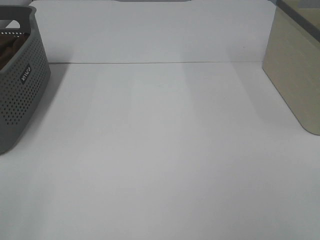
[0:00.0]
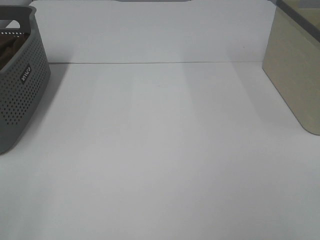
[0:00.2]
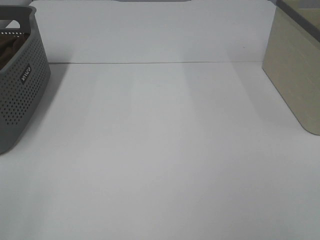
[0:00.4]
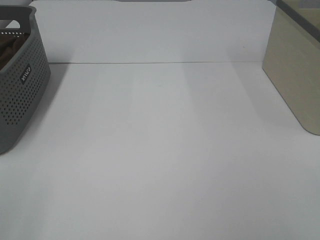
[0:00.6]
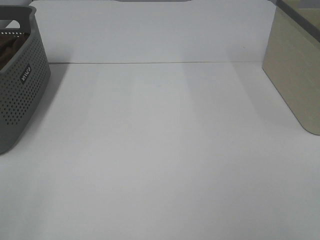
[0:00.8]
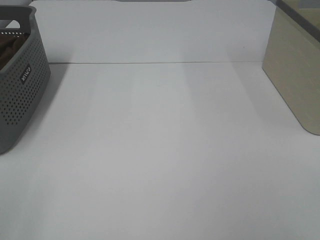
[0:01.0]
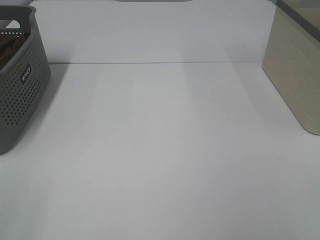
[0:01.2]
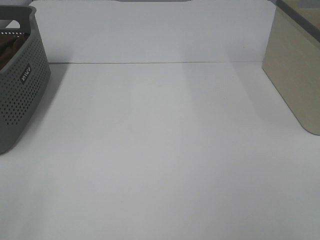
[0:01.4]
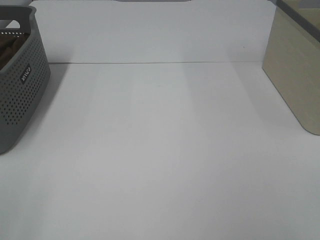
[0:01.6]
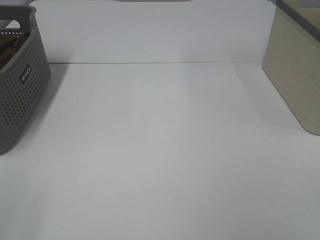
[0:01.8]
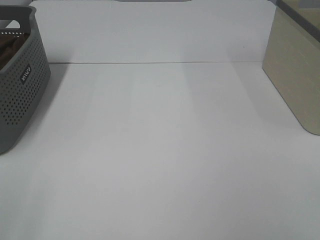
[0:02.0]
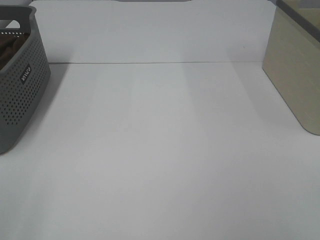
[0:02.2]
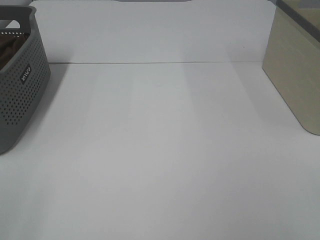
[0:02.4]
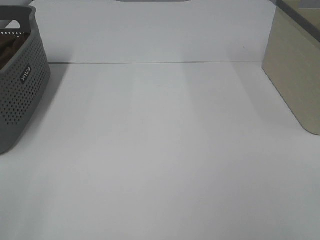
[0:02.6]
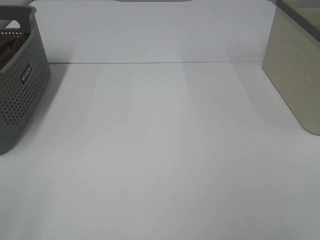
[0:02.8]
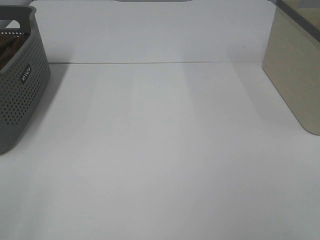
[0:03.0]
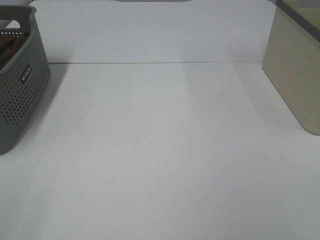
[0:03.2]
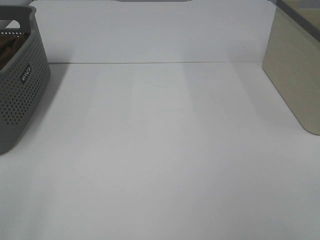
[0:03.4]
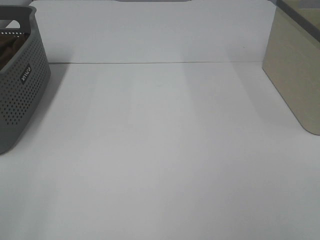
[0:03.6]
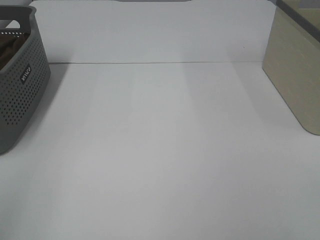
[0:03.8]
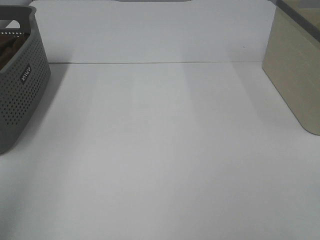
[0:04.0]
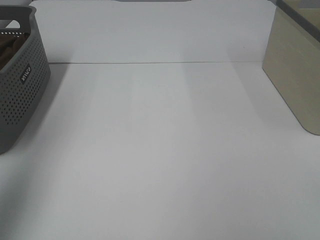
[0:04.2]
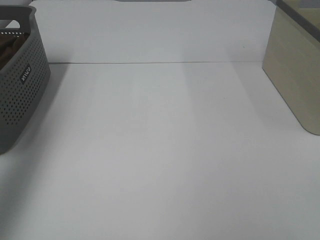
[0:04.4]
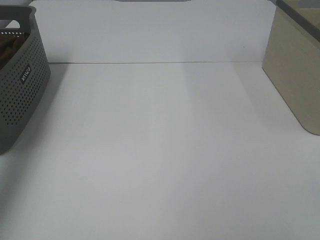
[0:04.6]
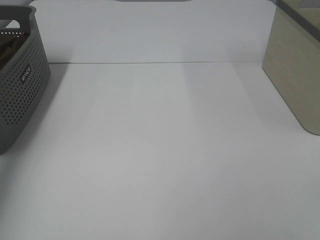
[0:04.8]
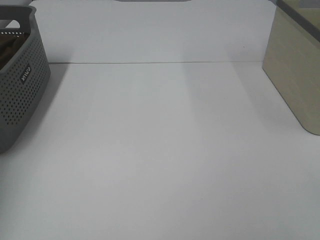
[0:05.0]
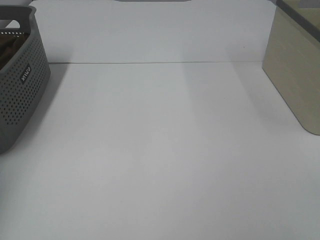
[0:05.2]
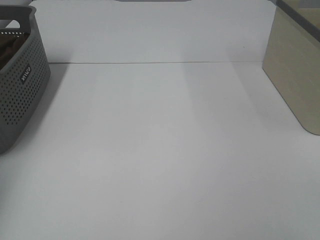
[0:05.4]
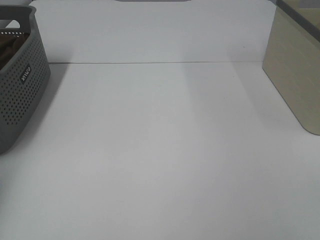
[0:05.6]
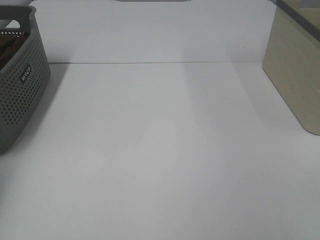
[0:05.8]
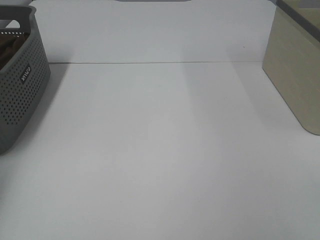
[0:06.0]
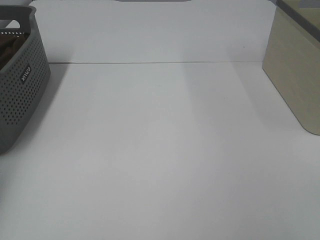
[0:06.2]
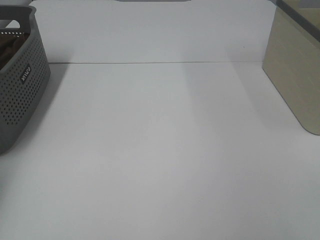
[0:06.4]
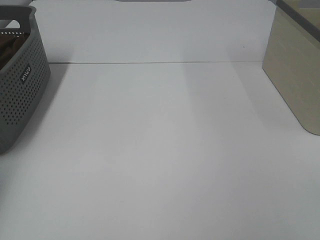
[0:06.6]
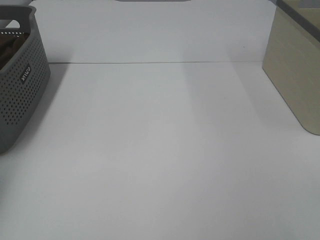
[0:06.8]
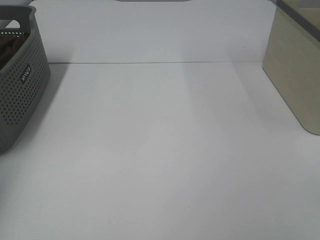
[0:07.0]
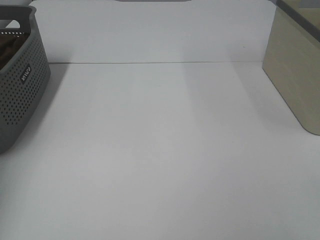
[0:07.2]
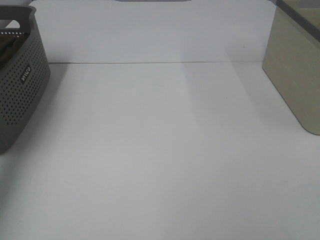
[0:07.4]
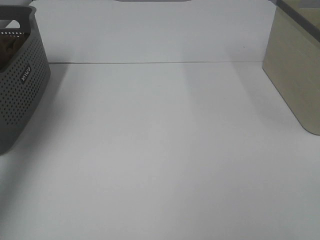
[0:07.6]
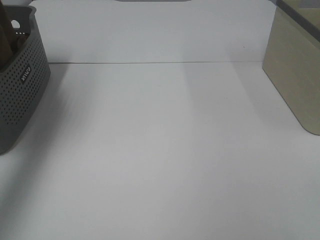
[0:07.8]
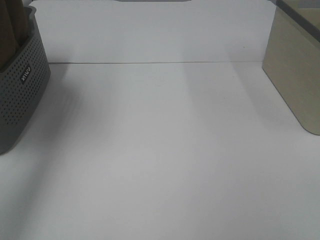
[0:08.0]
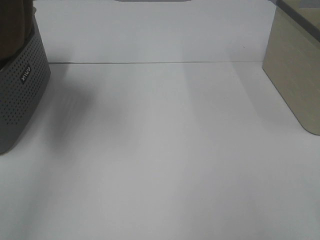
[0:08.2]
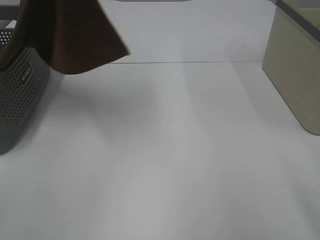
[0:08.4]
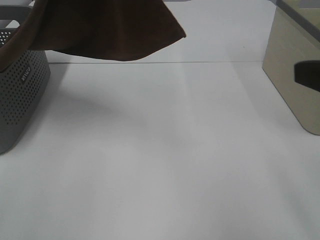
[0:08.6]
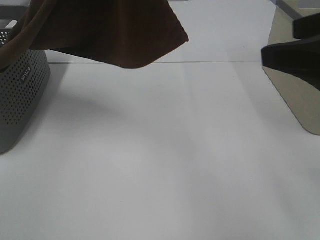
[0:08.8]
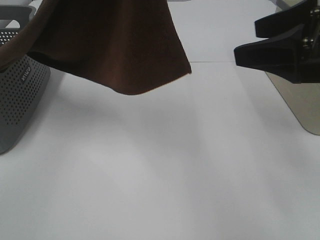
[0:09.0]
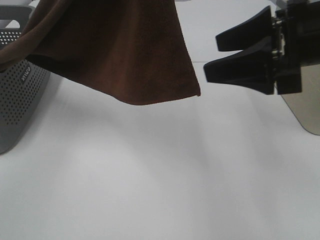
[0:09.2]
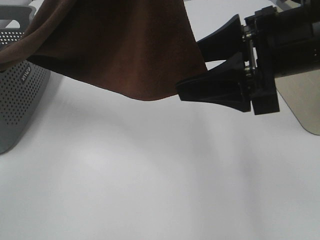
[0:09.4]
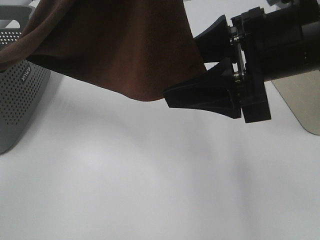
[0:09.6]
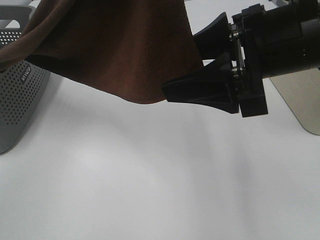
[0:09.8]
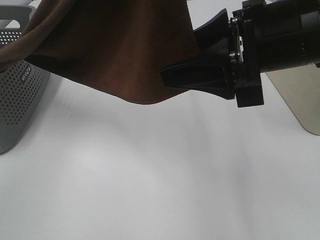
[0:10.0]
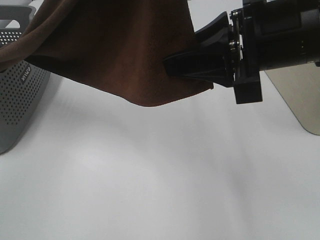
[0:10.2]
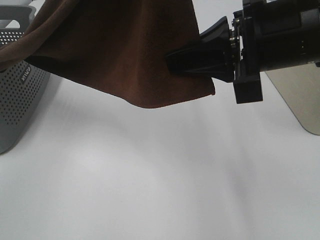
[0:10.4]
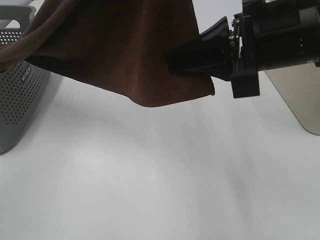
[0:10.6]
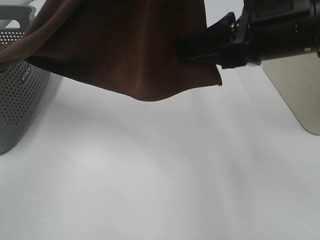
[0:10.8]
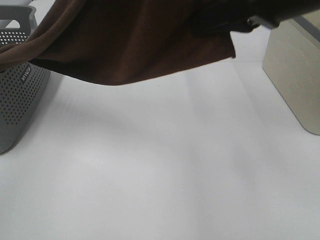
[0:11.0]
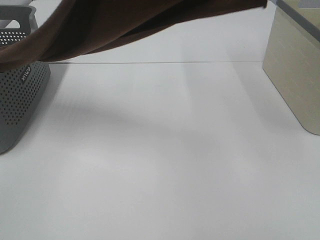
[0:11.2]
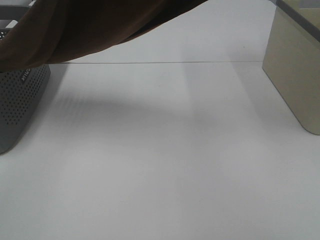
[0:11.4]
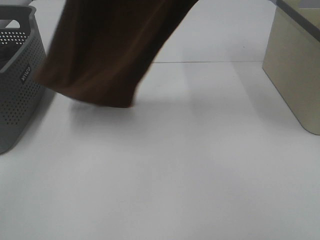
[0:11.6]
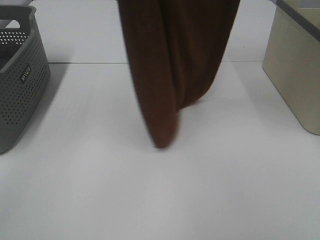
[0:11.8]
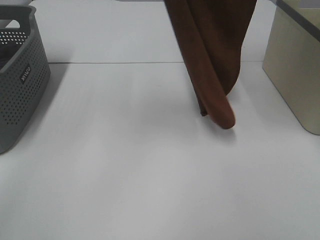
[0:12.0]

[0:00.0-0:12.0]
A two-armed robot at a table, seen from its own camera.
Task of the whole recording: Remove the towel and place it.
Step, 7.2 to 11.6 s: Right hand: grab a corner of the brown towel and straighten it.
0.0 to 3.0 s: Both grippers stay put.
3.0 to 4.4 s: The left gripper heads forward and upward, covering about 30 cm.
4.4 to 6.0 s: The left gripper is displaced downward, forward and to the left by some 30 cm.
6.0 to 7.6 s: The left gripper goes roughly 20 cm upward and to the right, and closes.
7.6 to 9.0 s: The left gripper shifts about 30 cm to the right, backward and upward. The right gripper shifts roughly 25 cm forward.
9.0 to 10.4 s: The right gripper travels to the left by roughly 10 cm, and closes its fingers.
10.4 to 12.0 s: The right gripper shifts roughly 30 cm upward and forward. The left gripper goes some 10 cm forward.

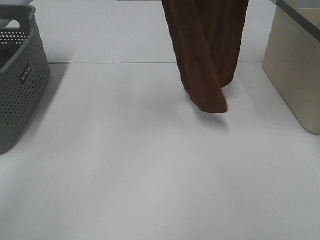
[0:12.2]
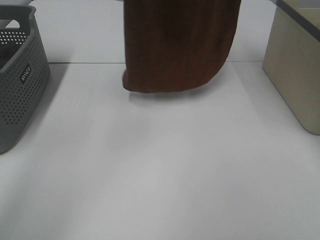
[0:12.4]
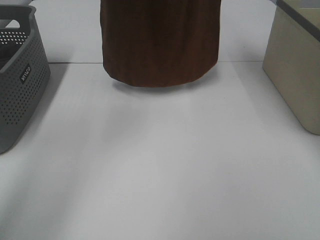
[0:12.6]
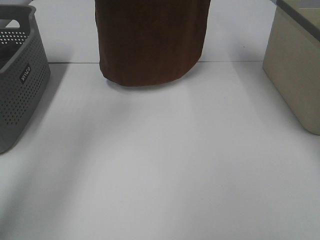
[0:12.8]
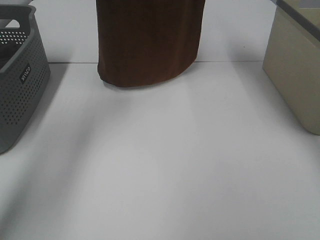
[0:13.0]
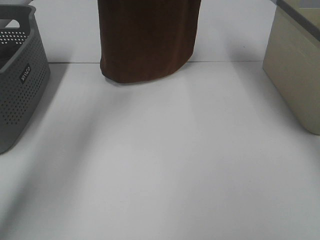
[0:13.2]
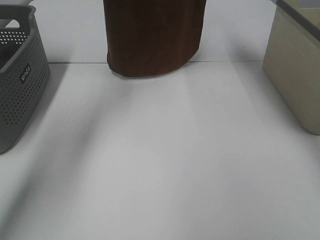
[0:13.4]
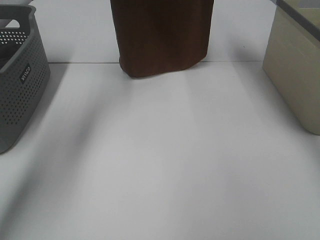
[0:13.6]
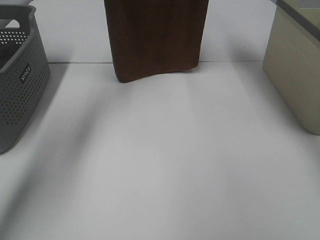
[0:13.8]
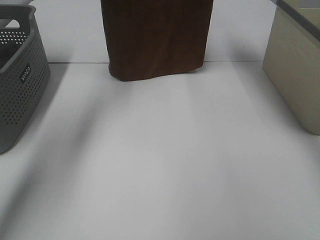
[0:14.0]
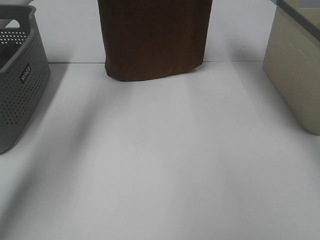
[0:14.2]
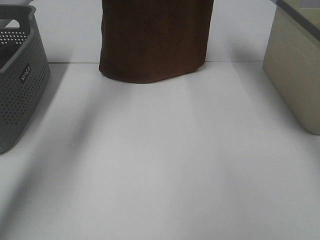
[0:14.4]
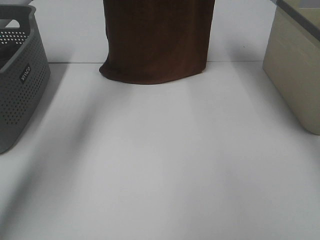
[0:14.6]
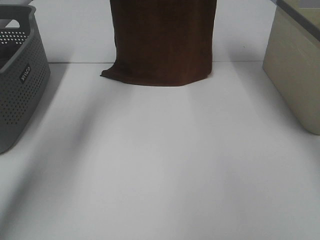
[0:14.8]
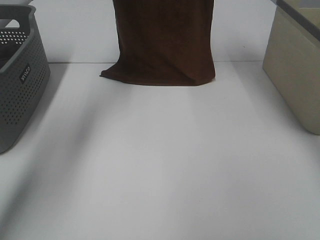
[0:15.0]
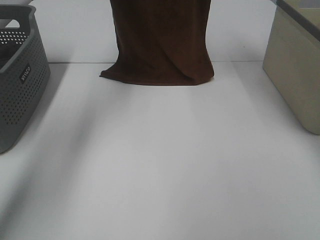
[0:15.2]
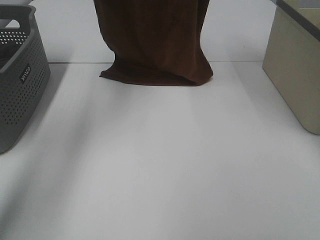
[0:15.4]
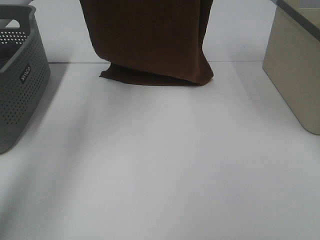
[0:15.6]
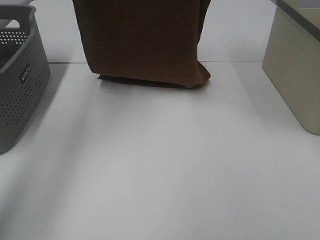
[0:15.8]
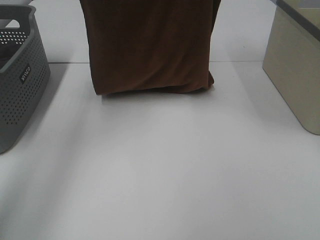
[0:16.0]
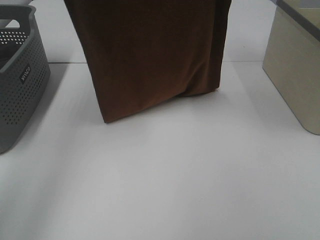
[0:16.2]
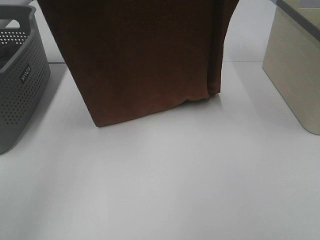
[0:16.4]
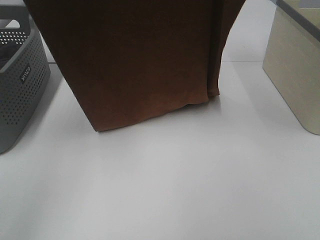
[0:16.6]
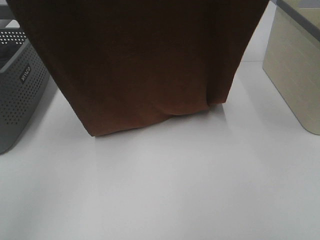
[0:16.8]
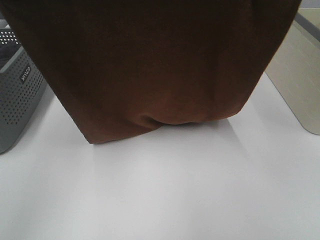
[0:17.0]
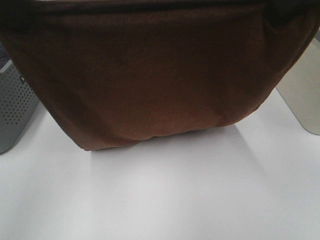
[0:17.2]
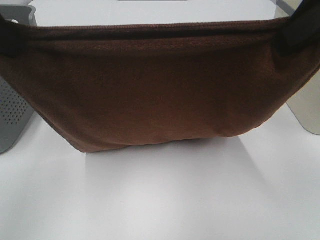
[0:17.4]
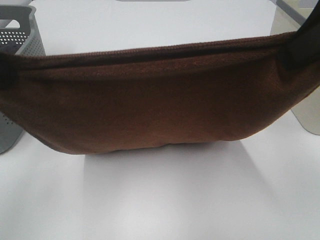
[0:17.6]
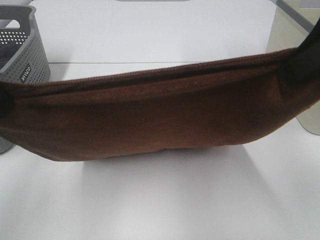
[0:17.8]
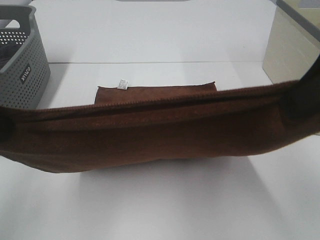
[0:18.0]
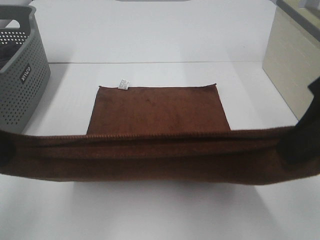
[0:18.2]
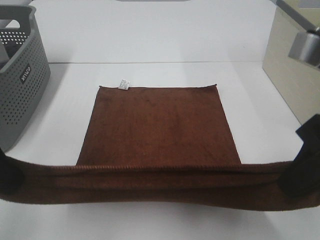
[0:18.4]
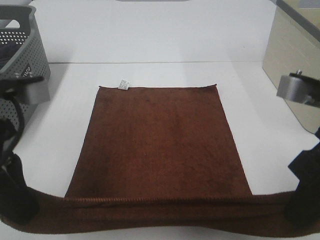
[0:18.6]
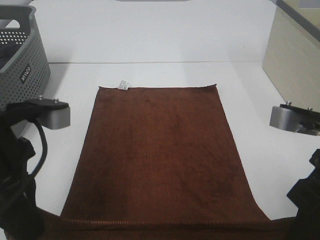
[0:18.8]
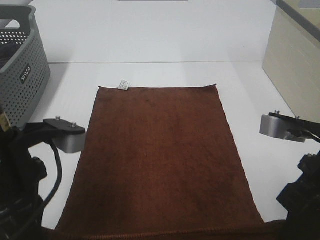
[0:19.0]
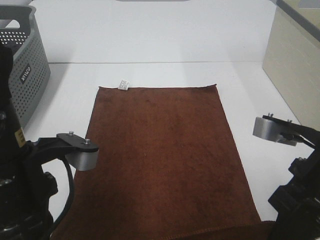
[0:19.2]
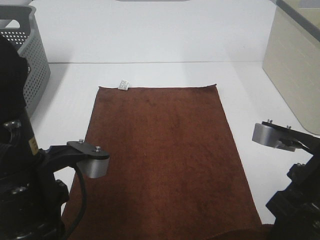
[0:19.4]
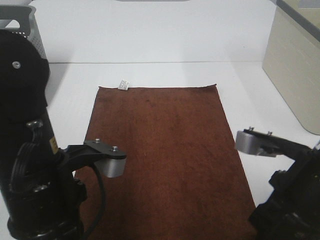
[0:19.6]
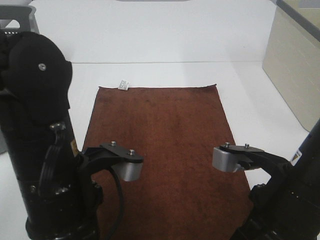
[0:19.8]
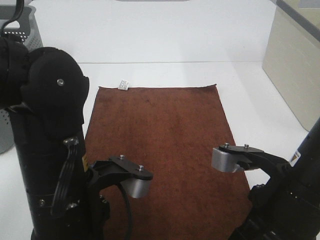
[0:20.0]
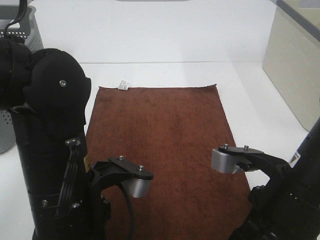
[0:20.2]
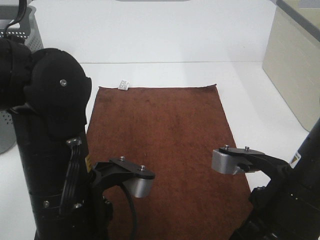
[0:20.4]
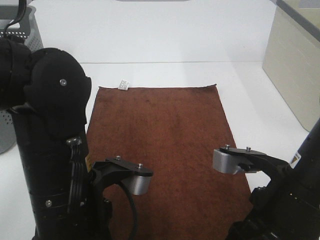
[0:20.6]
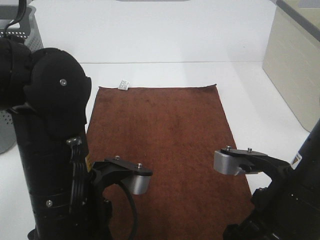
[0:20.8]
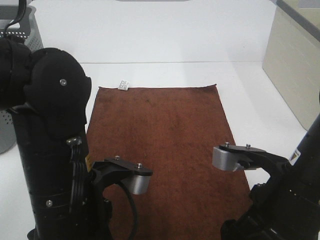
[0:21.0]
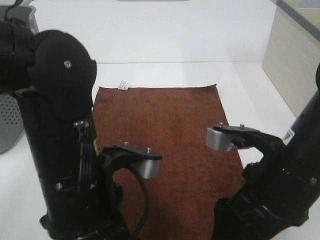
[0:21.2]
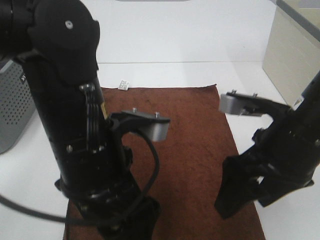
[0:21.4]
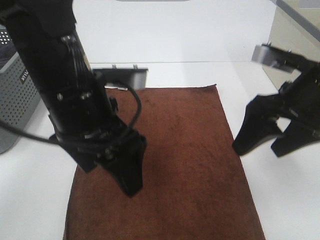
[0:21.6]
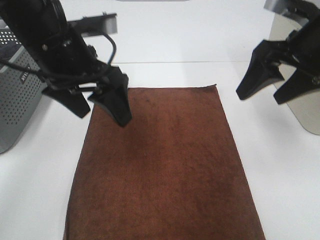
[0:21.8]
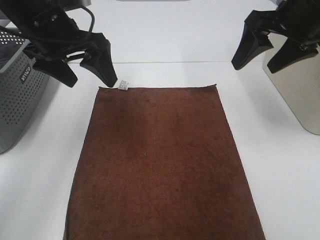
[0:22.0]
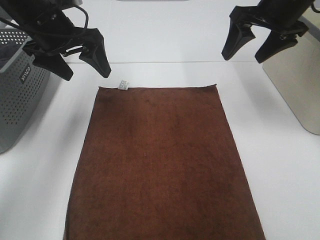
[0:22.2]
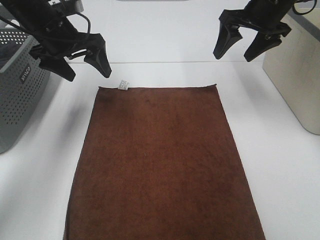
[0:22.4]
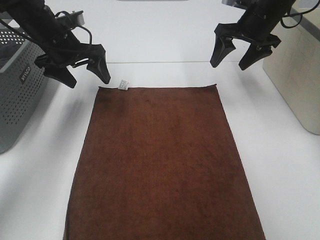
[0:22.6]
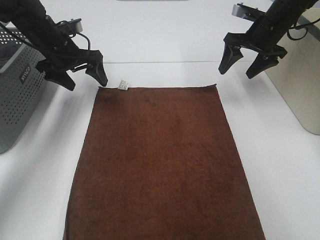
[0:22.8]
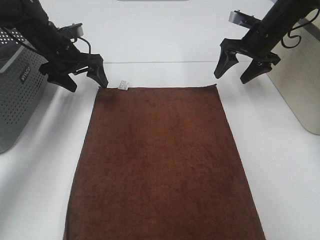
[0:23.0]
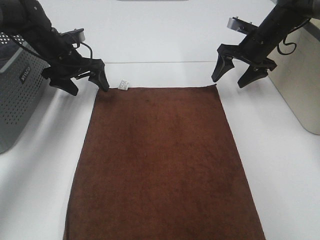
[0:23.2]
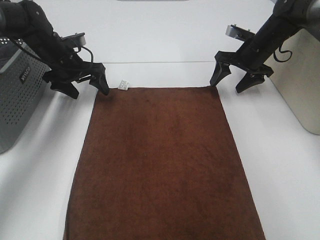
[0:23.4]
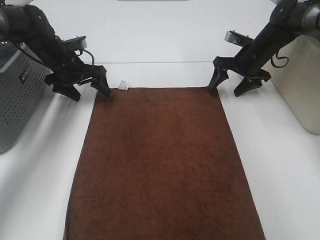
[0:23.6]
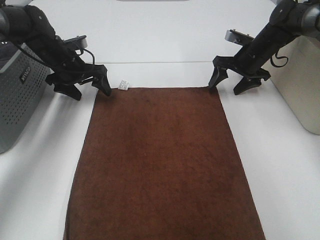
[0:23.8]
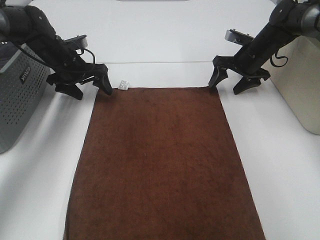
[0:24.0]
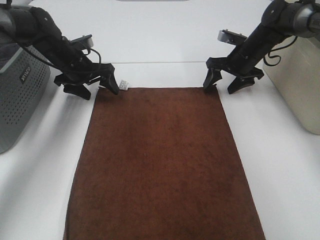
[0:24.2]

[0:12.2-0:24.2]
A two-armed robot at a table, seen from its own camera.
Task of the whole recording: Remove the towel and place it.
Step, 12.2 to 16.8 s: Left hand: spread the brown towel flat on the table.
Step, 12.2 to 16.8 s: Right hand: spread the brown towel flat on the table.
Step, 17.0 to 23.4 s: Left hand:adjust the brown towel.
Step, 17.0 to 23.4 s: Right hand:adjust the brown towel.
12.2 to 13.8 s: Both grippers move forward and downward, approximately 15 cm.
15.2 to 16.6 s: The grippers both shift backward by approximately 20 cm.
16.6 to 18.2 s: The two grippers go about 20 cm downward and backward.
18.2 to 19.8 s: The left gripper shifts approximately 15 cm to the right and downward. The right gripper shifts about 15 cm downward.
19.8 to 21.2 s: The right gripper opens up, while the left gripper opens up.
21.2 to 22.6 s: The left gripper shifts approximately 35 cm forward and to the left, while the right gripper shifts roughly 35 cm forward.
22.6 to 24.2 s: Both grippers travel together downward, approximately 10 cm.
